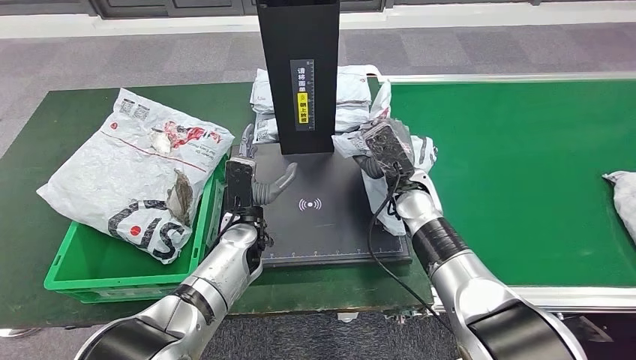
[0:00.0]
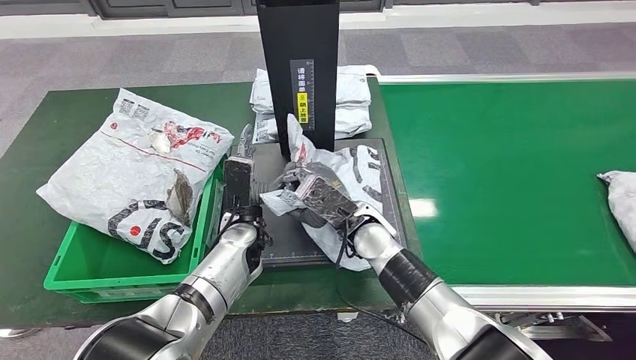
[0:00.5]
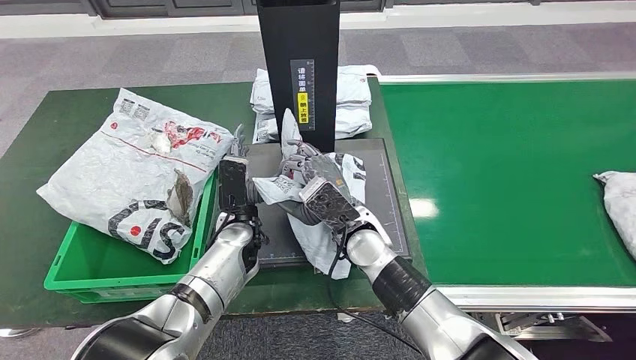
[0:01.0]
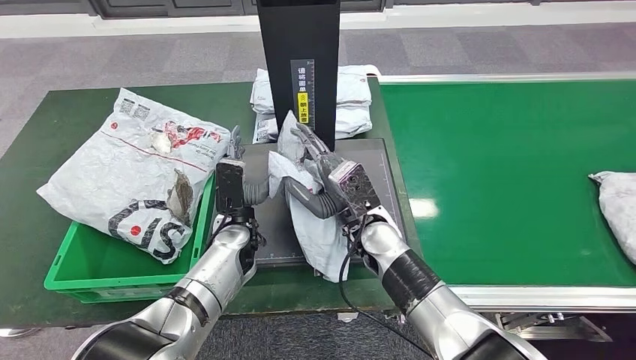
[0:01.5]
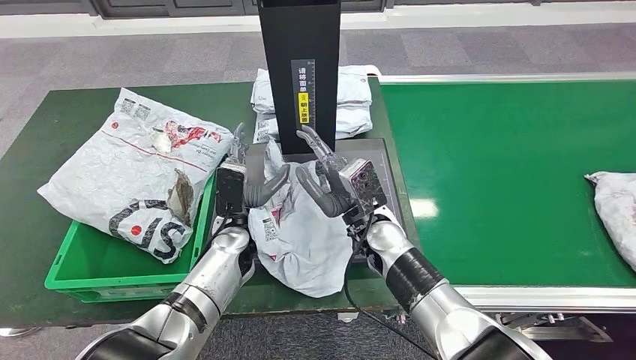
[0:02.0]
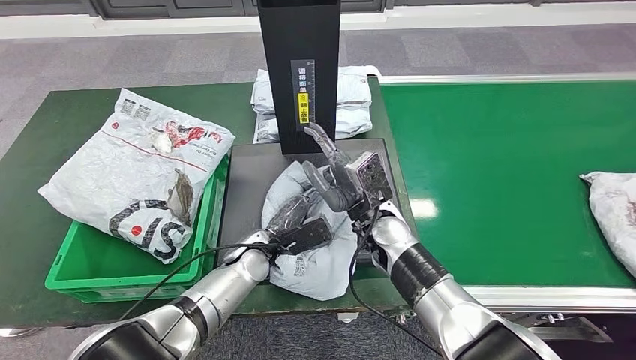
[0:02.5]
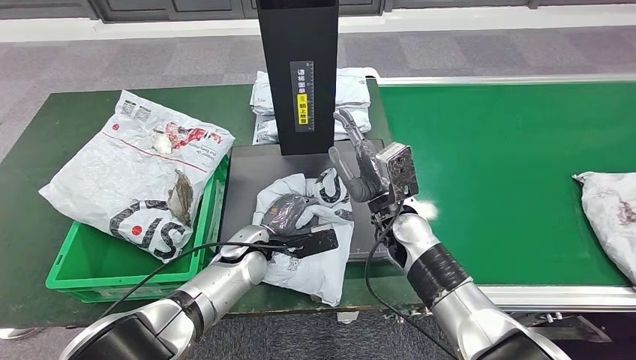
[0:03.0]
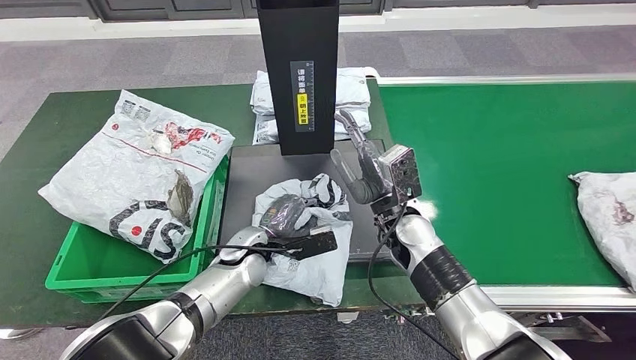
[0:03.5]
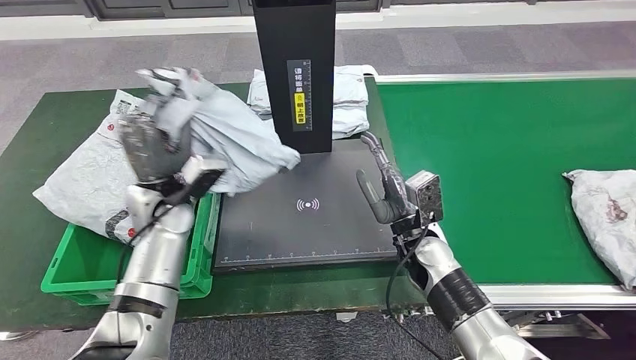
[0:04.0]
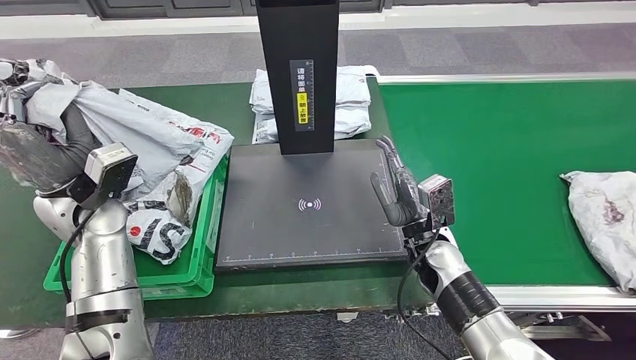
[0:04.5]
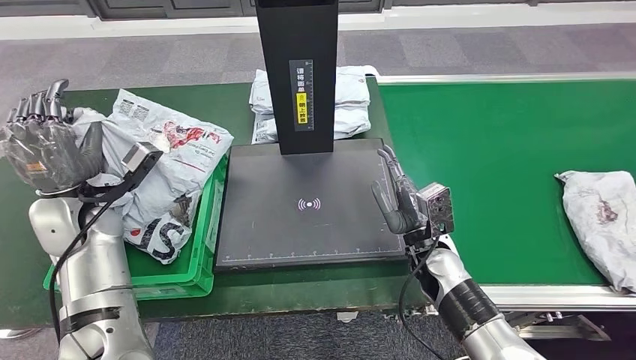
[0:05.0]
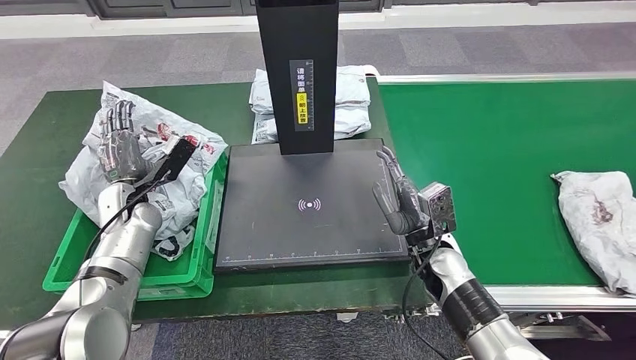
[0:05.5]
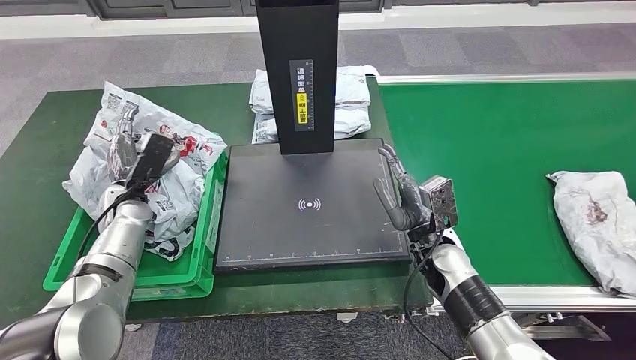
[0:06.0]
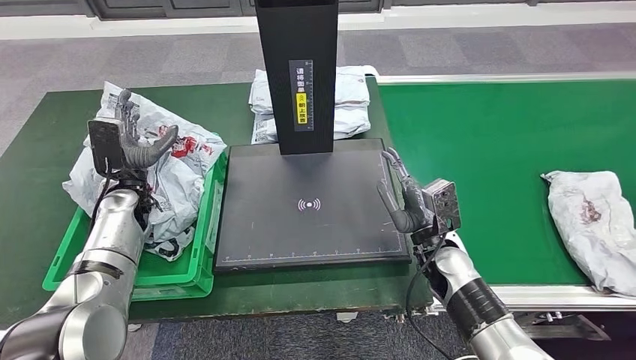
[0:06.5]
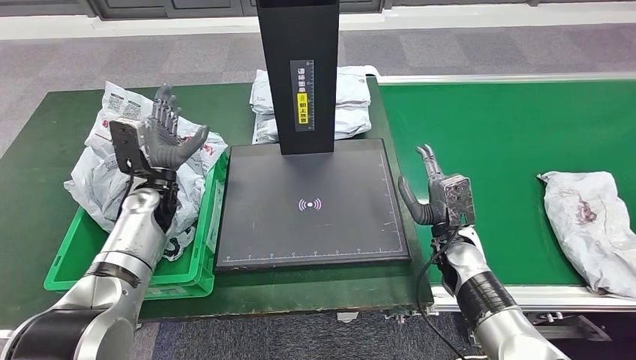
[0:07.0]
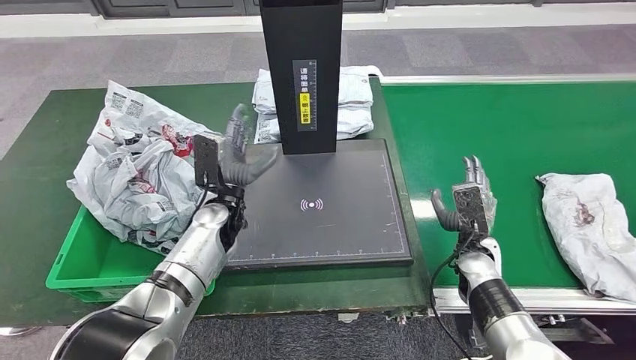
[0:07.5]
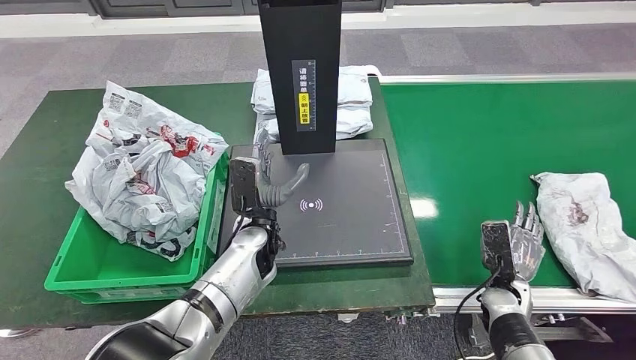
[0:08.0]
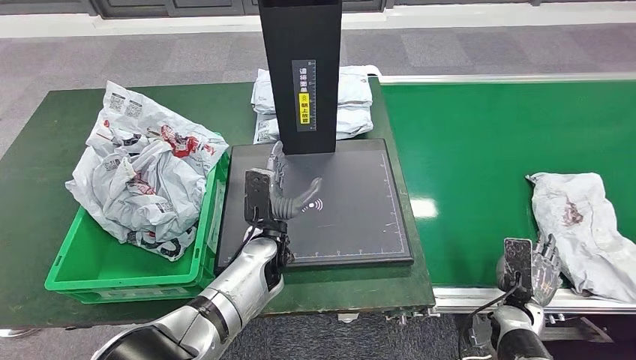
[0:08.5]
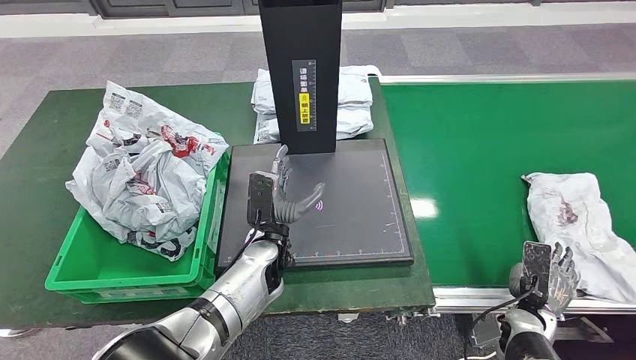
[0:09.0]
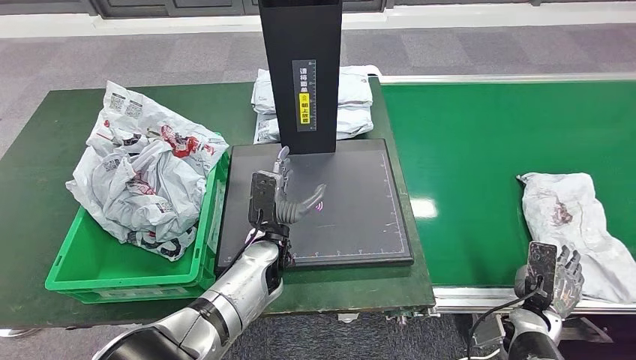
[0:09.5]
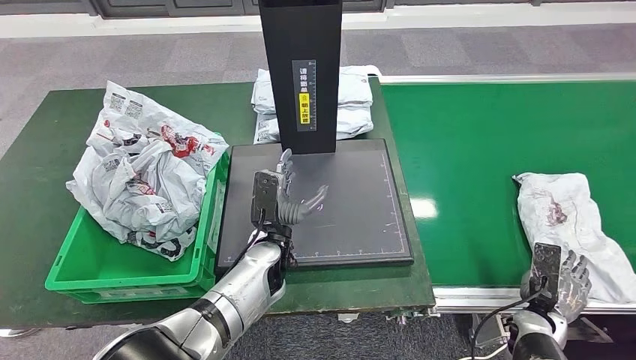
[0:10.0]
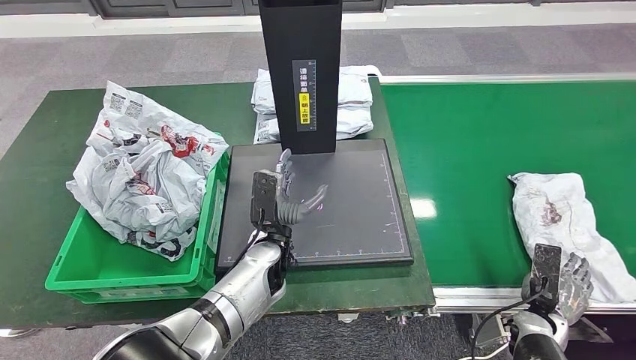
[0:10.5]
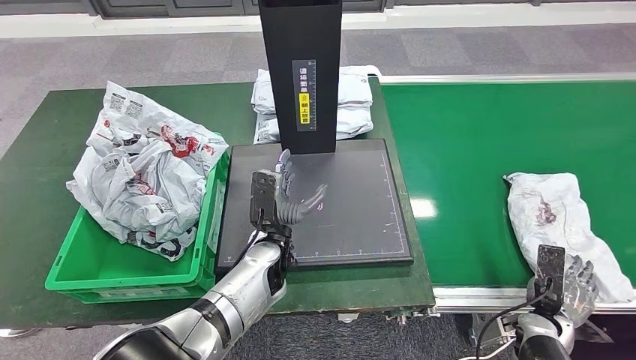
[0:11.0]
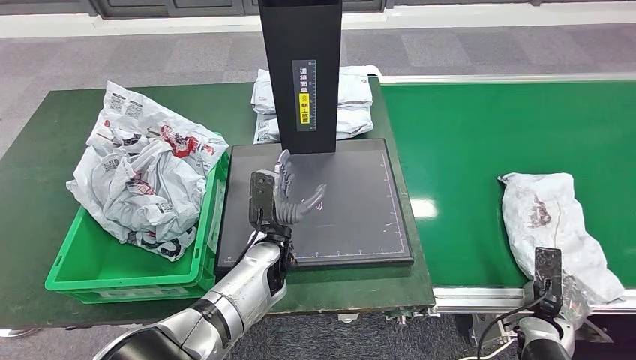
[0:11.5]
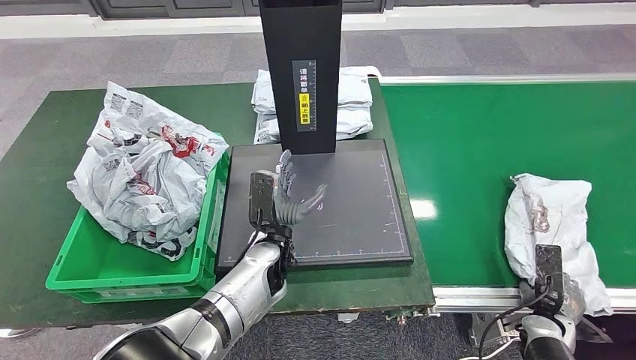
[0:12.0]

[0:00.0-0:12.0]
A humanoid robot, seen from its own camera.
Step, 0:00.0 to 0:02.5: Place the parcel onto the inbound machine.
Step, 0:03.0 to 0:04.0: Pick up the parcel from the inbound machine.
Step, 0:04.5 to 0:06.5: Place the parcel into the delivery box.
0:08.0 to 0:10.0: The right hand heads to the right, covering about 5 cm.
0:10.0 to 0:12.0: The hands move only a little.

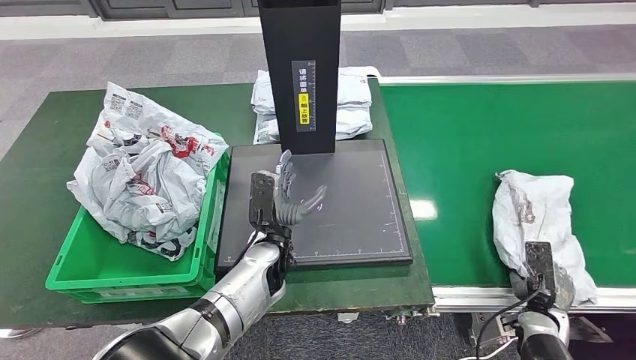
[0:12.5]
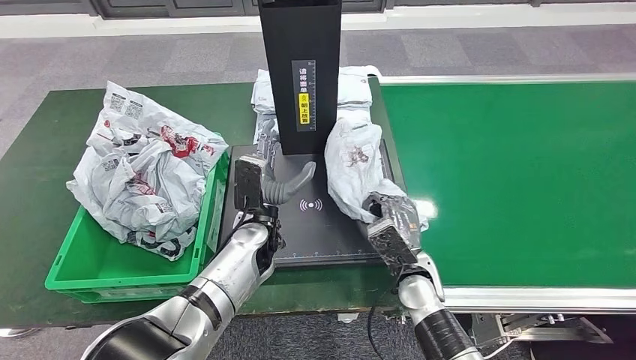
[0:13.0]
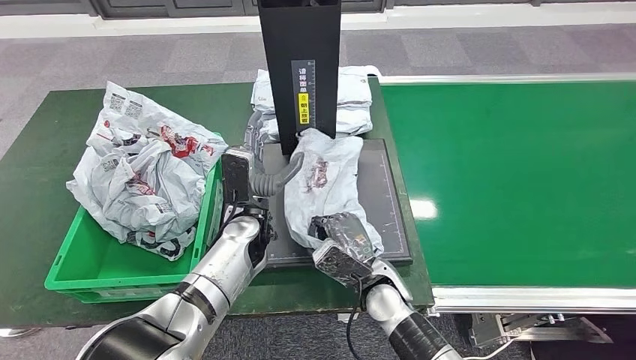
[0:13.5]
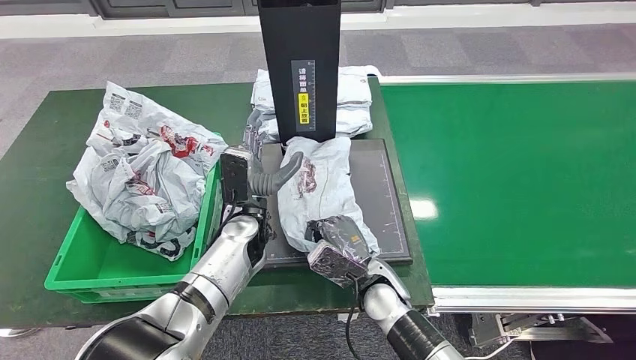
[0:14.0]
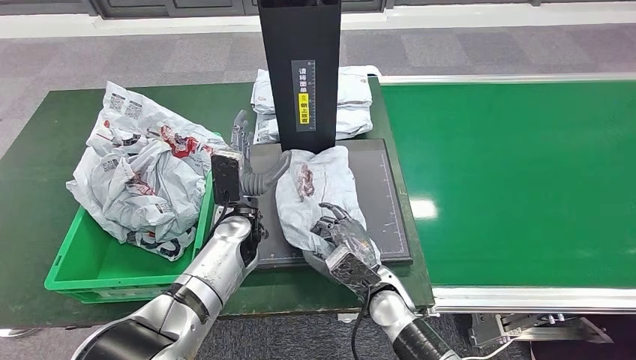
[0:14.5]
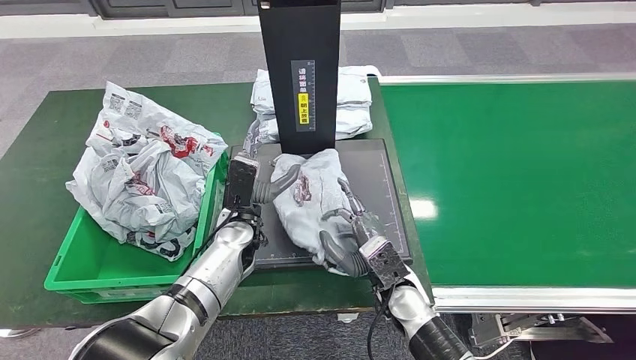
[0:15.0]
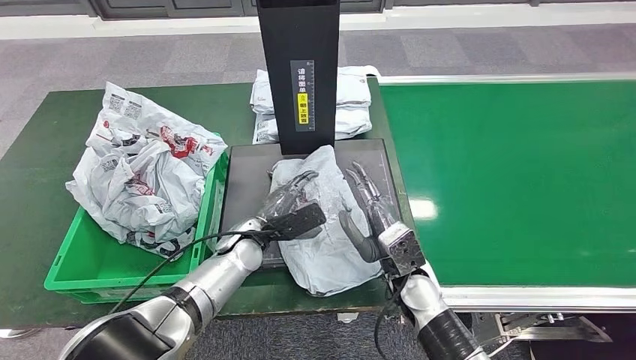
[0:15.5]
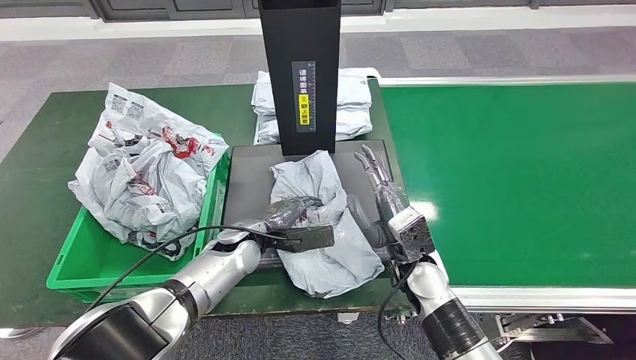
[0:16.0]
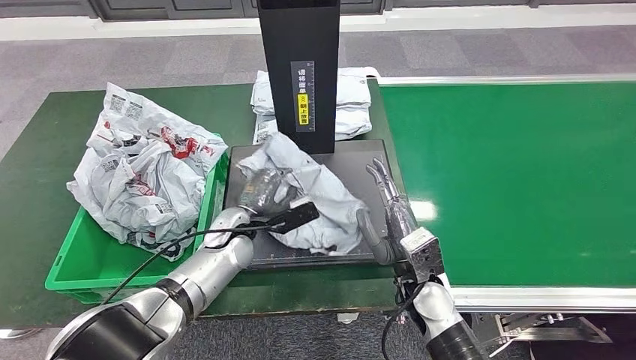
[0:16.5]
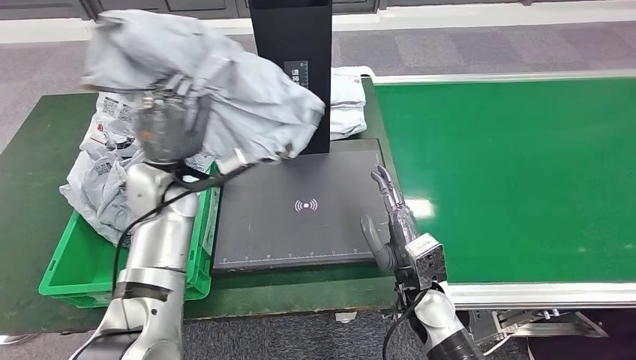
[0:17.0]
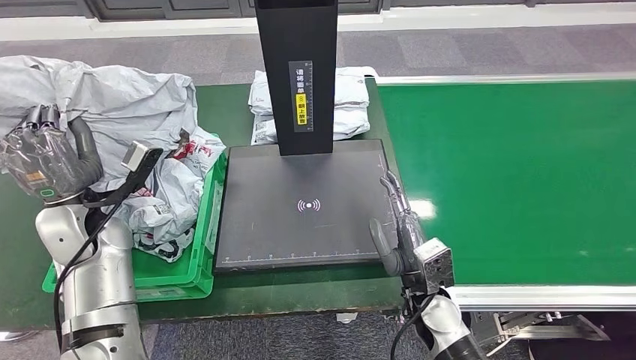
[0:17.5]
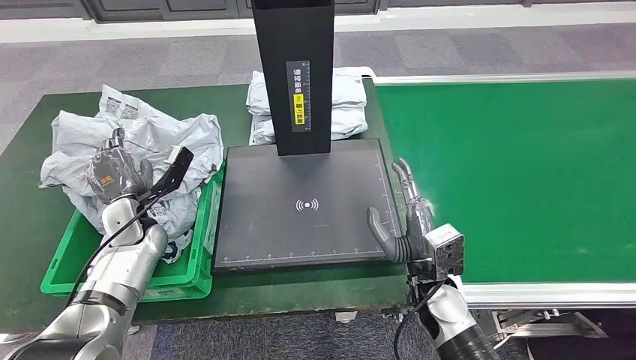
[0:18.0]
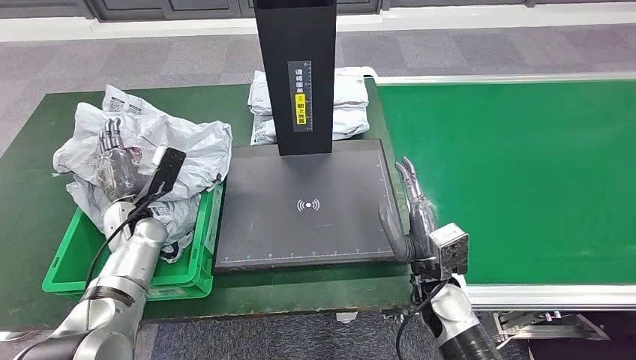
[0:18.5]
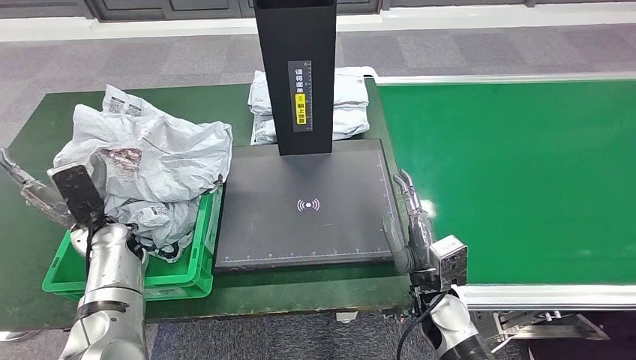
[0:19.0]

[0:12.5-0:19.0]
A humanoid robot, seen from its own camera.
Step, 0:13.5 to 0:15.0: Place the parcel onto the inbound machine.
Step, 0:15.5 to 0:17.5: Pick up the parcel from the inbound machine.
Step, 0:18.0 to 0:19.0: Place the parcel into the delivery box.
